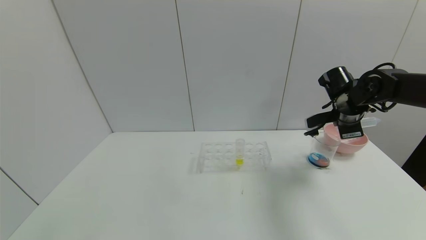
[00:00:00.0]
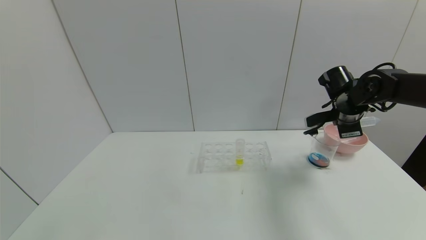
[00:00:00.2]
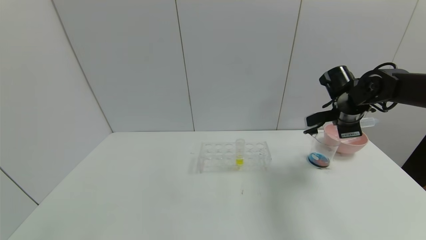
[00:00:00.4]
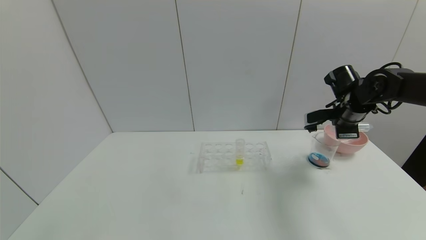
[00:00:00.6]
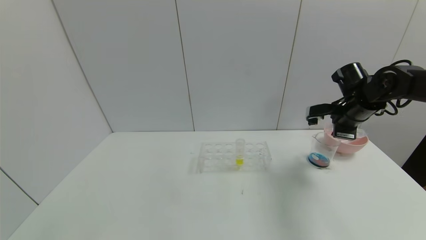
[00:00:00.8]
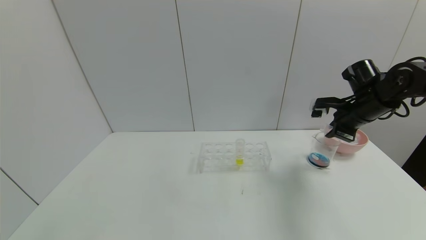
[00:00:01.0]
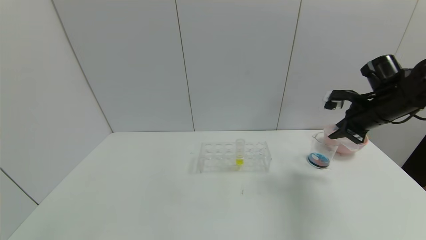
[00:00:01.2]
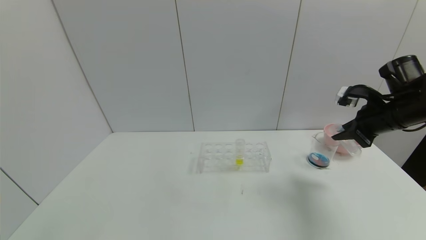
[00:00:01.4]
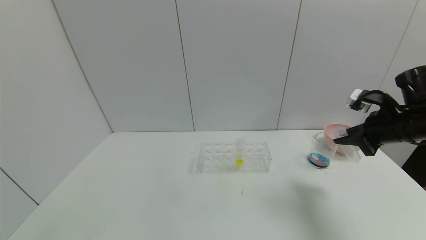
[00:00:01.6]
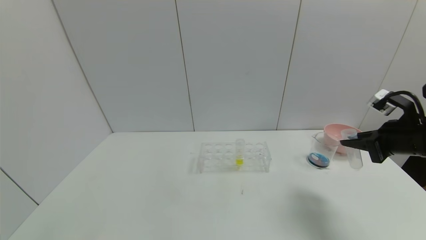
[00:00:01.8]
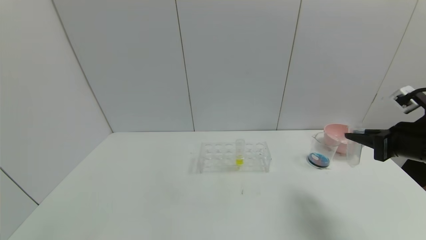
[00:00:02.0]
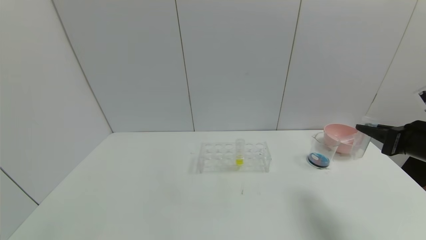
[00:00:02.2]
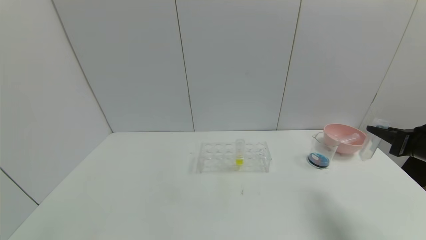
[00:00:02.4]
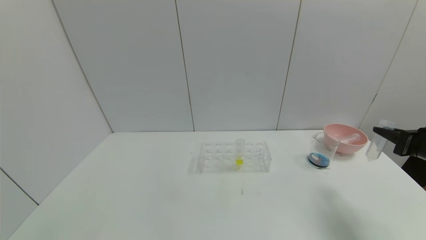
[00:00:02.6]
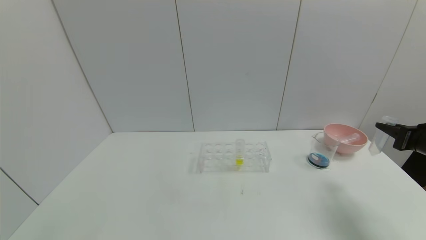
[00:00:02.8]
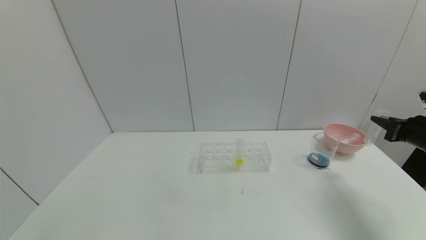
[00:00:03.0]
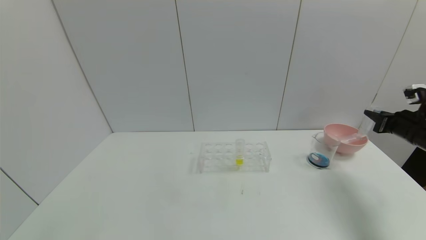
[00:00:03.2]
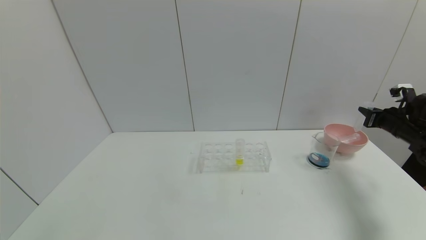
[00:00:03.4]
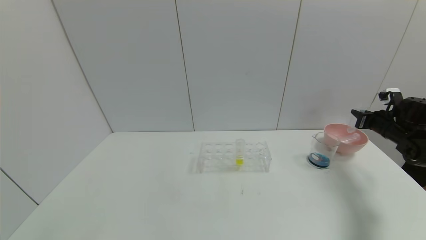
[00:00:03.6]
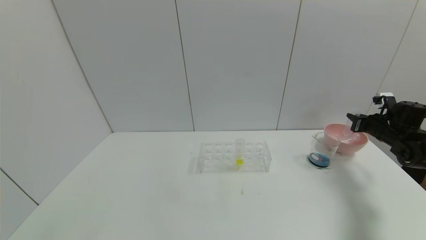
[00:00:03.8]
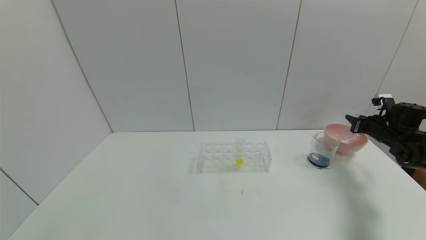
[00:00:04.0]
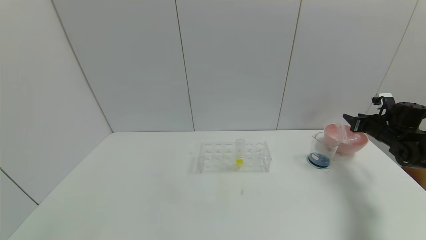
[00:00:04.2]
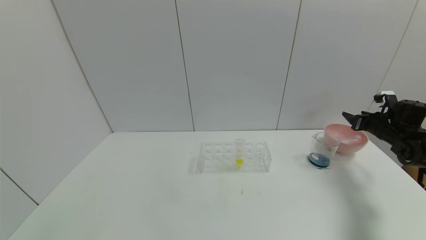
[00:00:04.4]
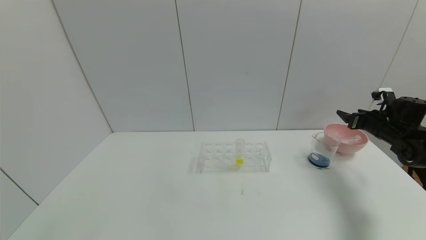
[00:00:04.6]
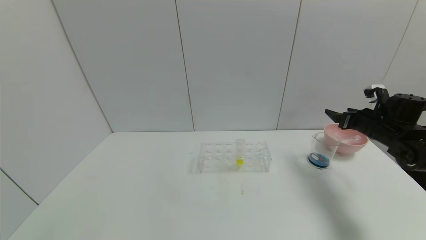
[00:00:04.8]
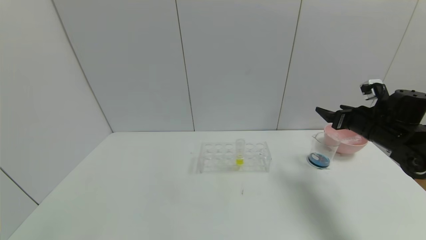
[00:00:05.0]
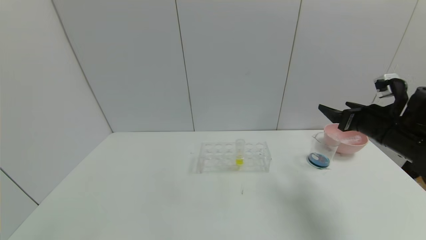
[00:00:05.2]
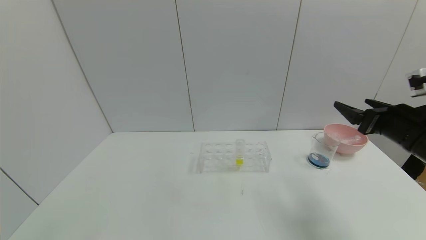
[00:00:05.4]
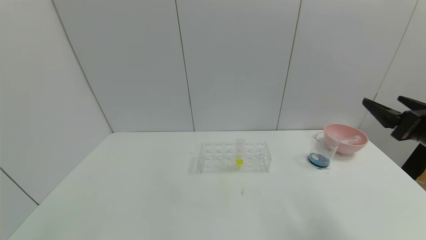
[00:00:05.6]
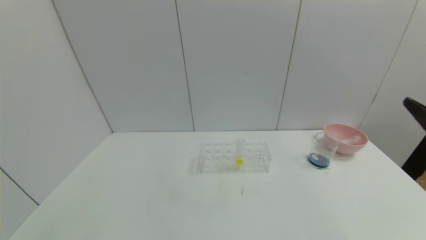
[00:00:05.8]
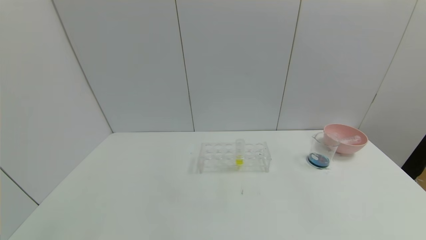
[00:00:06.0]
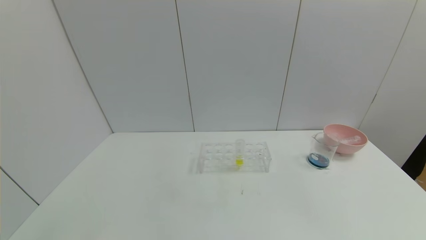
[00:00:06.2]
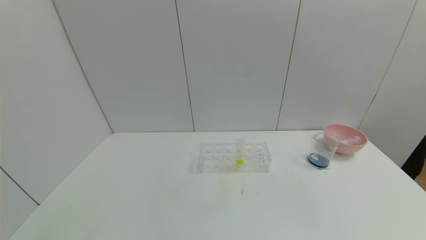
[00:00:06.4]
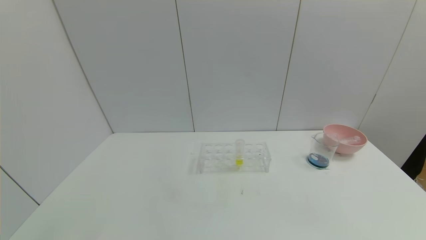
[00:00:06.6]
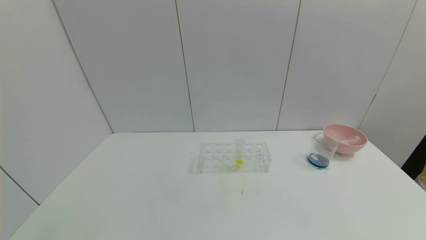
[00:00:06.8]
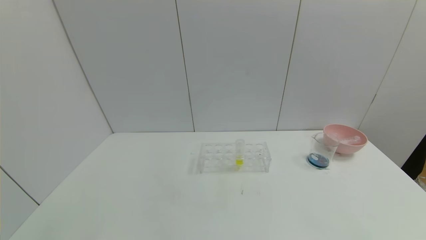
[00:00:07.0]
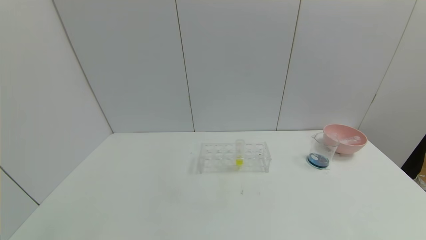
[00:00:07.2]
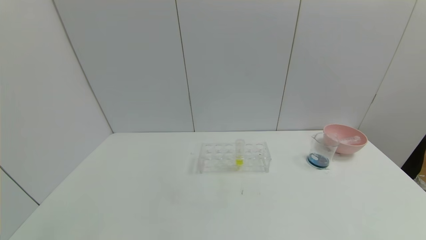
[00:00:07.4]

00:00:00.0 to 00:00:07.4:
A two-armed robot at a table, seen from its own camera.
Task of the whole recording: pick up the test tube with red pigment and the test tube with blue pigment by grippers and pour them into the container.
Step, 00:00:00.0 to 00:00:04.6: Place the test tube into the bowl with the right gripper.
00:00:00.0 to 00:00:01.4: The right gripper moves backward, about 5 cm.
00:00:01.4 to 00:00:03.0: The right gripper moves to the right and downward, about 10 cm.
00:00:03.0 to 00:00:04.4: The right gripper goes some 15 cm forward and downward, and opens.
00:00:04.4 to 00:00:06.0: The right gripper is displaced backward by some 35 cm, and opens its fingers.
